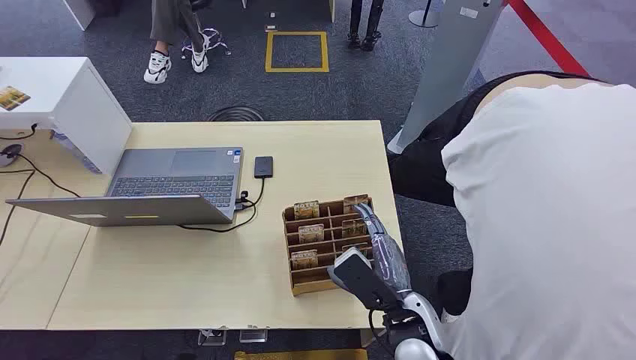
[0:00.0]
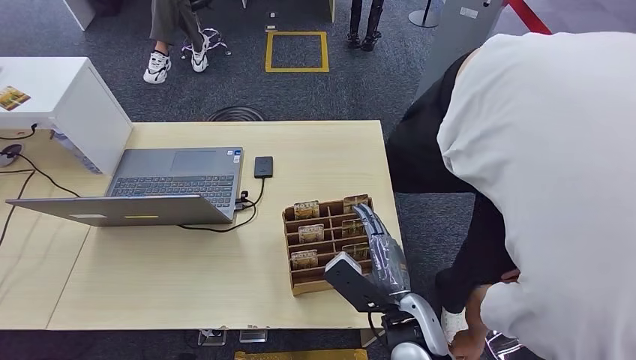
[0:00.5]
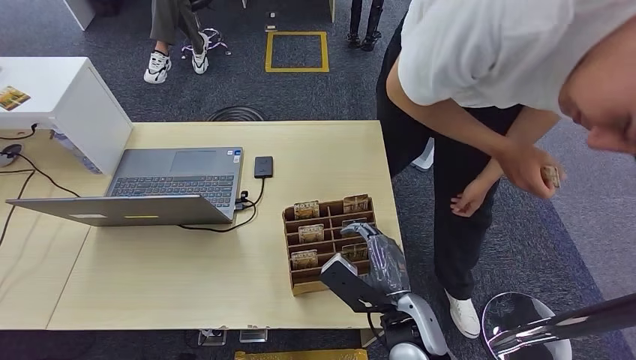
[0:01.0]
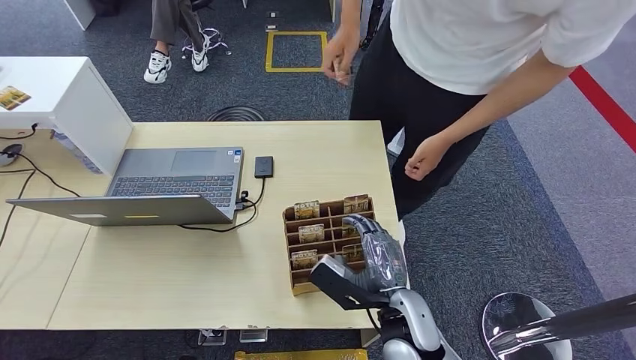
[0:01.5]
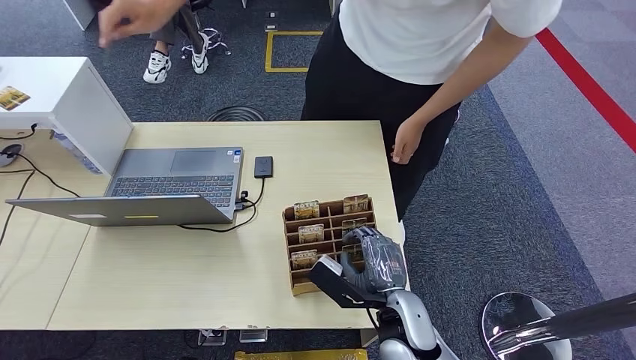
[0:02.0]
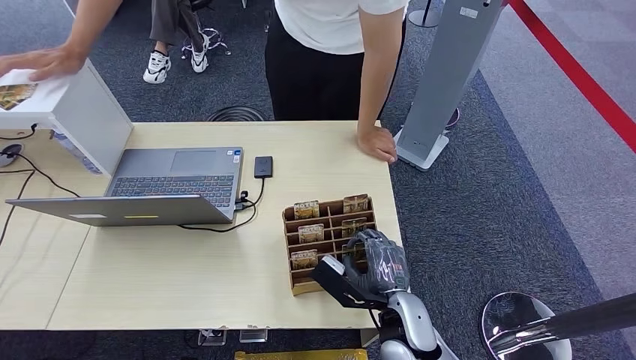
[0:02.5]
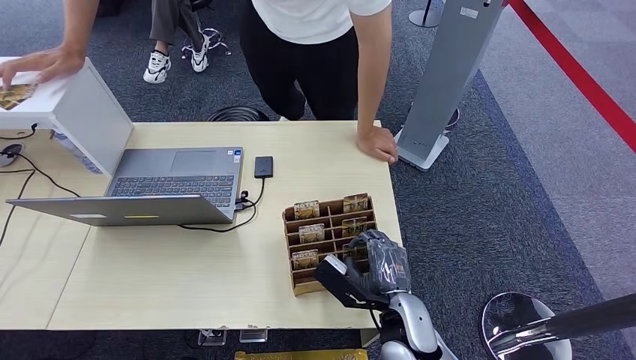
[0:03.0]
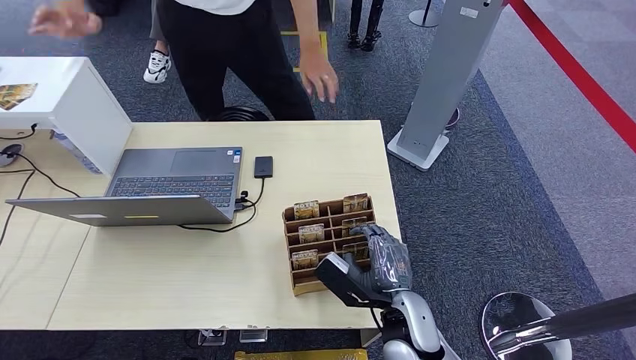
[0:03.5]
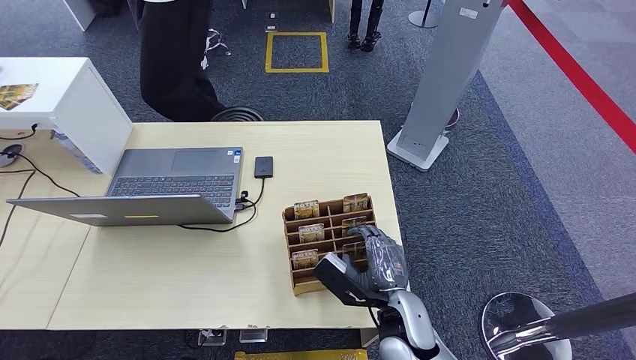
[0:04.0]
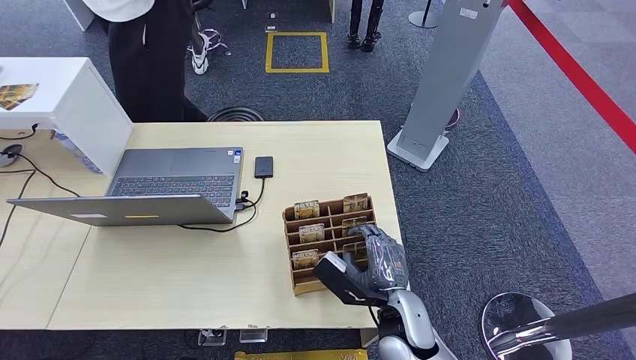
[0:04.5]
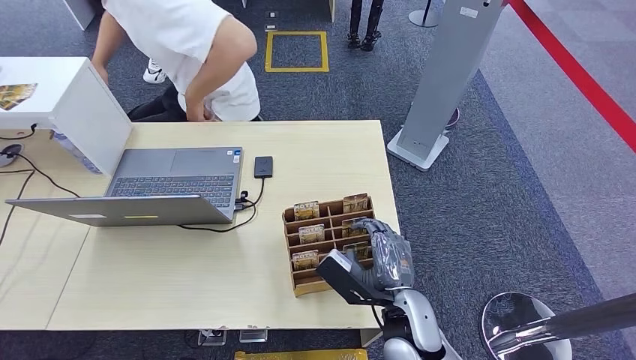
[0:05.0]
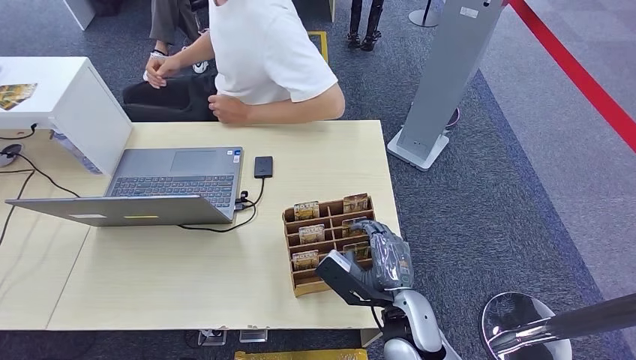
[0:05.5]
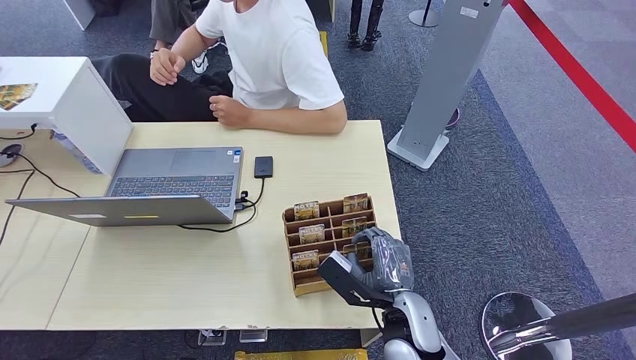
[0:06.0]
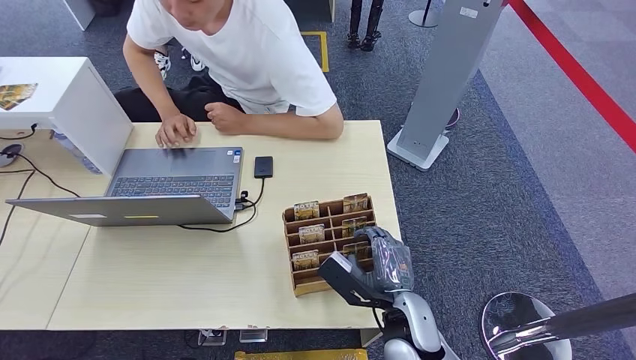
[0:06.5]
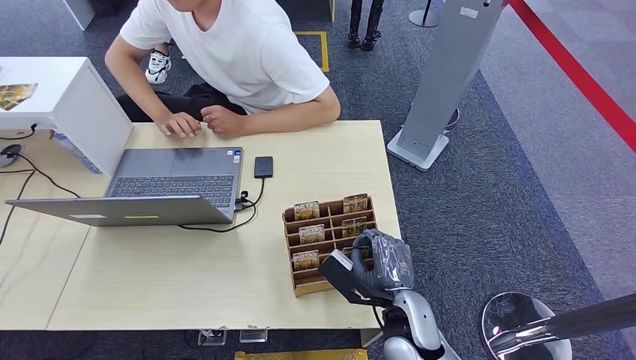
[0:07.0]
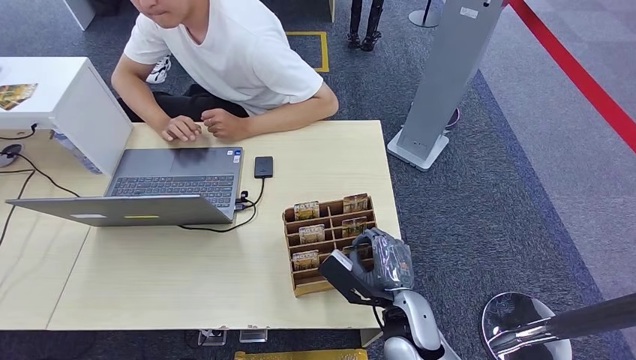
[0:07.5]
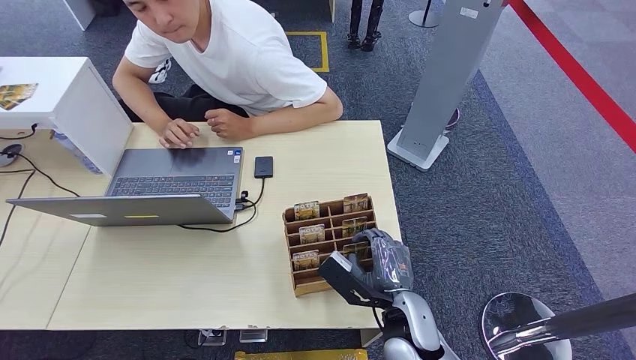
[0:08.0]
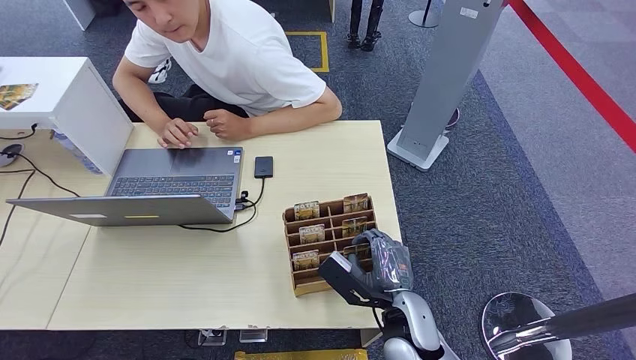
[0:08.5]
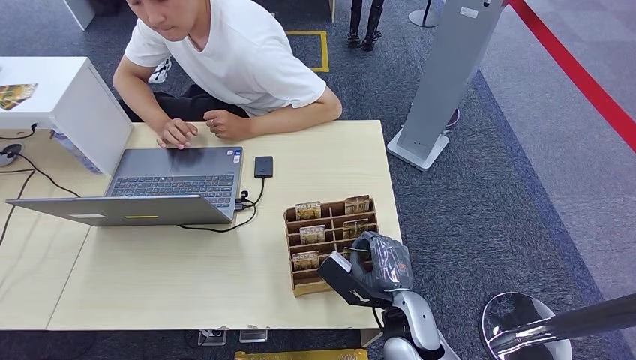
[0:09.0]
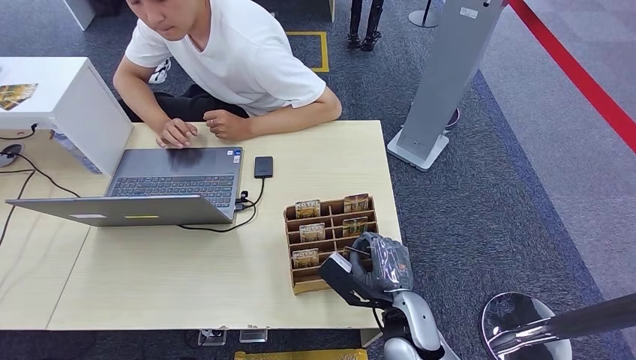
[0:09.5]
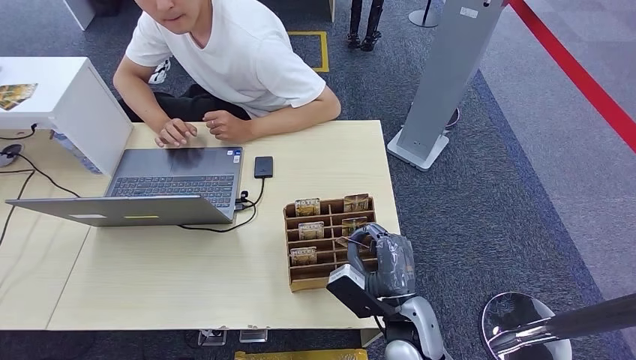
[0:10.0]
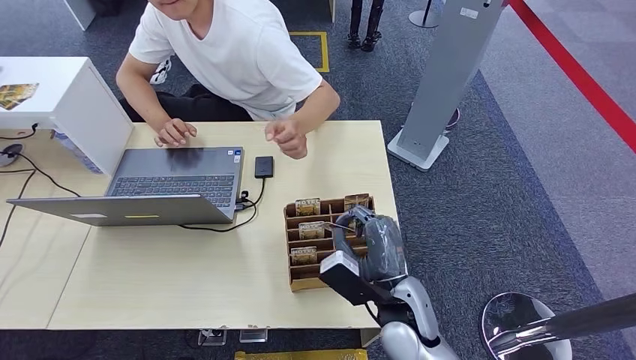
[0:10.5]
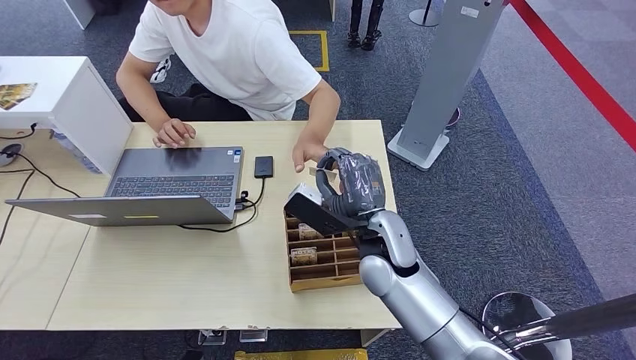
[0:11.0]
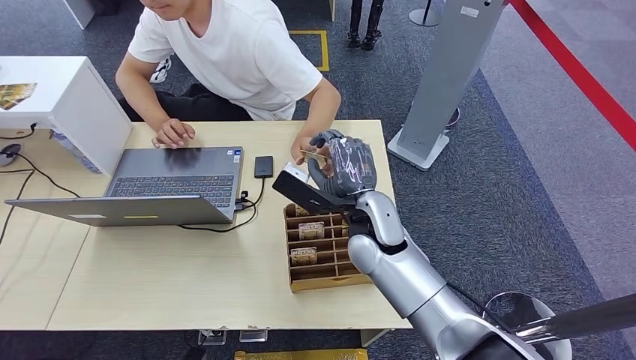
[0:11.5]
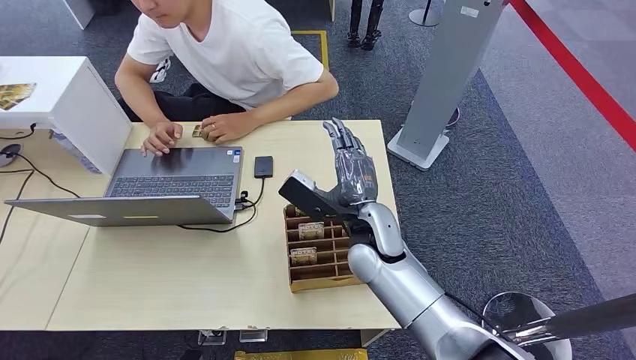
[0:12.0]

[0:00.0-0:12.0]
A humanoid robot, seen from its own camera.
Step, 0:00.0 to 0:07.5: Pick up the key card from the card box.
Step, 0:08.0 to 0:11.5: Hand the key card to the target.
0:04.0 to 0:06.0: The hands make only small movements.
0:06.0 to 0:08.0: Both hands stay put.
0:10.0 to 0:12.0: The right hand is displaced forward, upward and to the left by roughly 15 cm.
